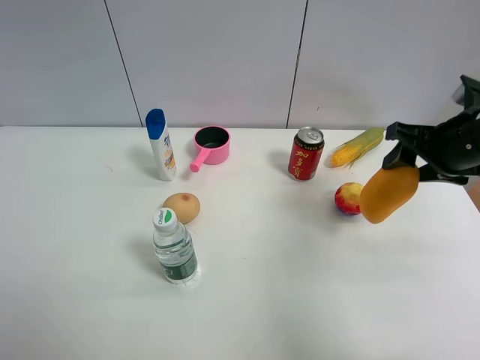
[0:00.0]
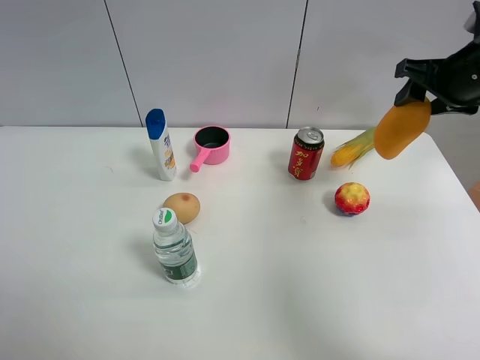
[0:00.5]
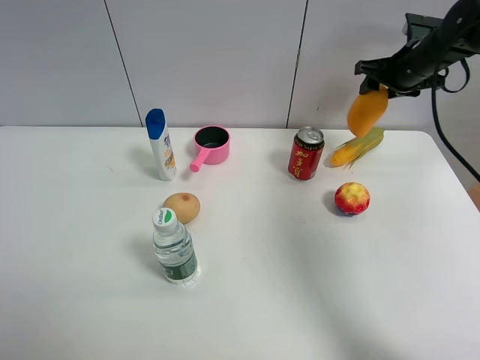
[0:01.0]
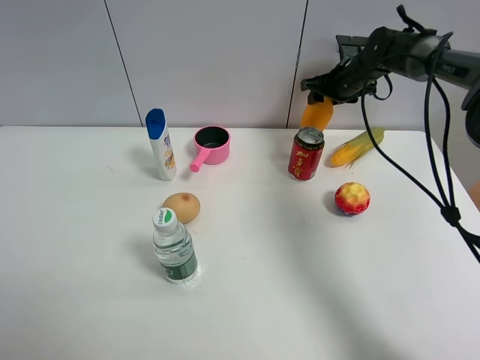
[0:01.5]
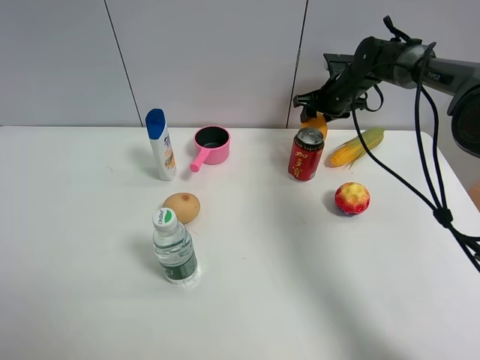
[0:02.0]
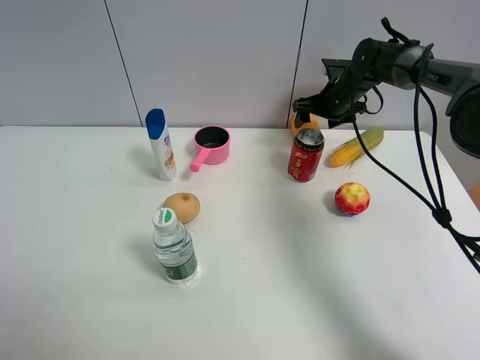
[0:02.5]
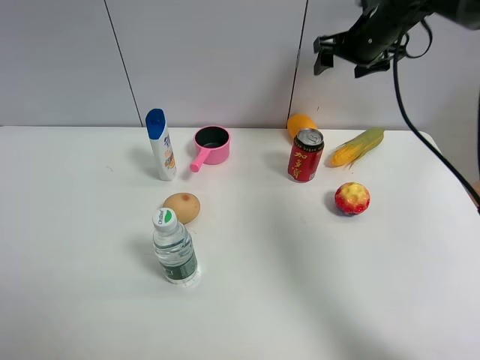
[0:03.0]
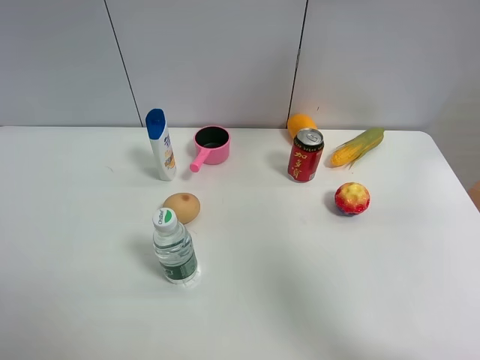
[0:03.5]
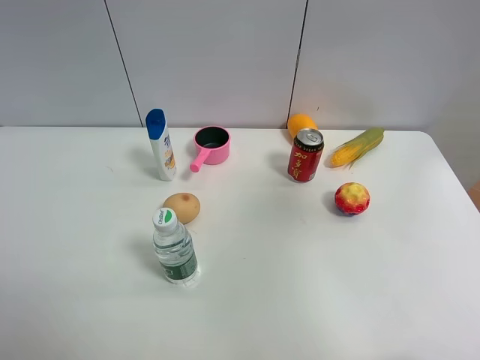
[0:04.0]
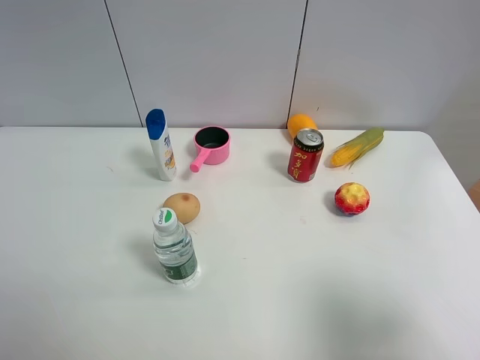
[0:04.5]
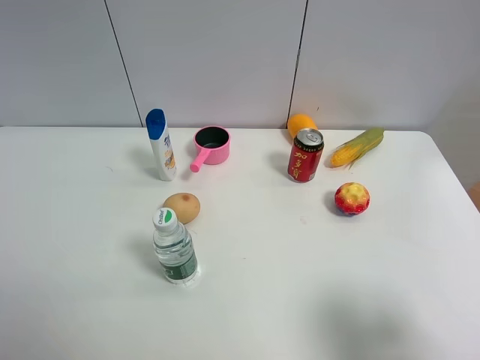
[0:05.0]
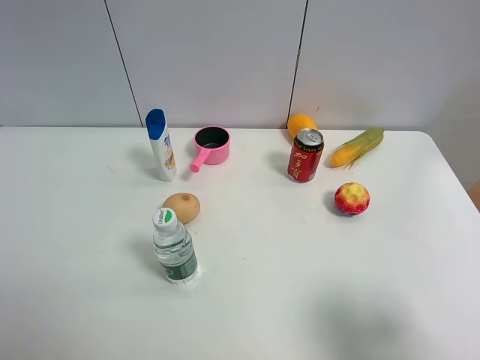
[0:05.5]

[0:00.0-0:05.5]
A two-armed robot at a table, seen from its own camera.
Task of the whole recording: the gripper move the object.
Step, 0.0 to 2.0 s: Place the mango on the table with the right gripper.
0.0 to 2.0 s: The right gripper is displaced forward by some 25 cm.
2.0 to 3.5 s: The right gripper goes approximately 35 cm upward and backward, and opens up.
3.5 to 5.5 s: The right gripper heads backward and downward, covering some 40 cm.

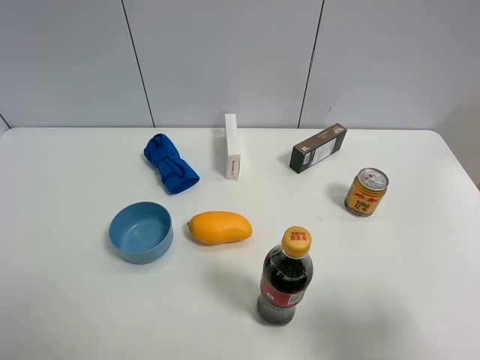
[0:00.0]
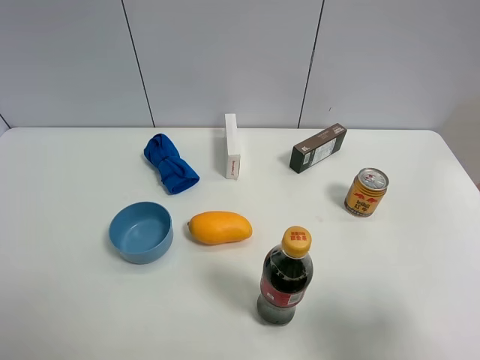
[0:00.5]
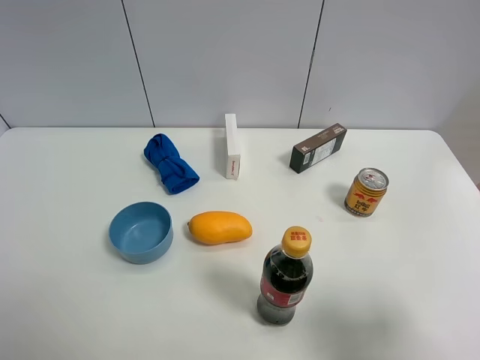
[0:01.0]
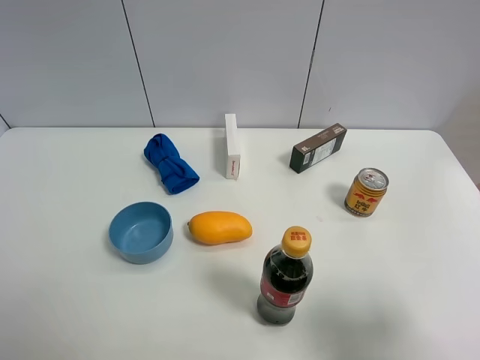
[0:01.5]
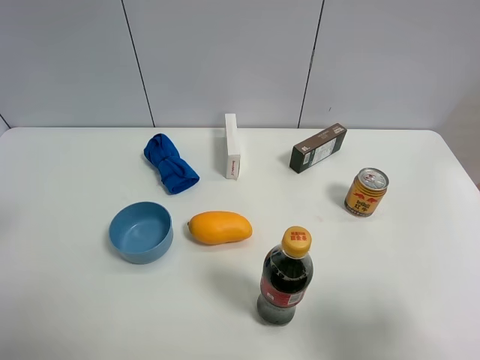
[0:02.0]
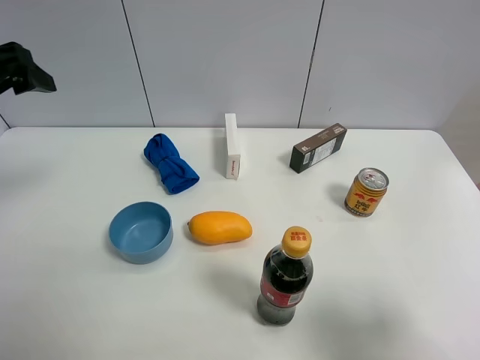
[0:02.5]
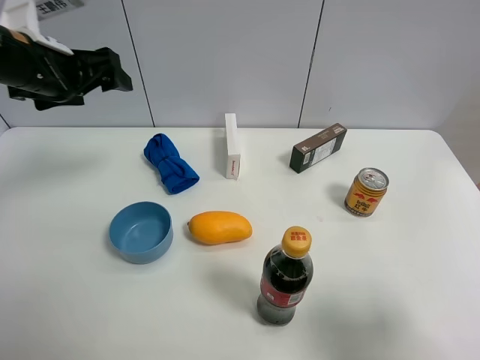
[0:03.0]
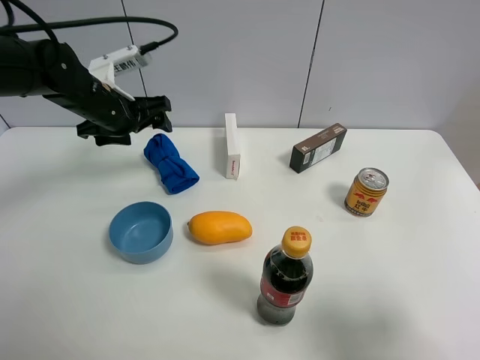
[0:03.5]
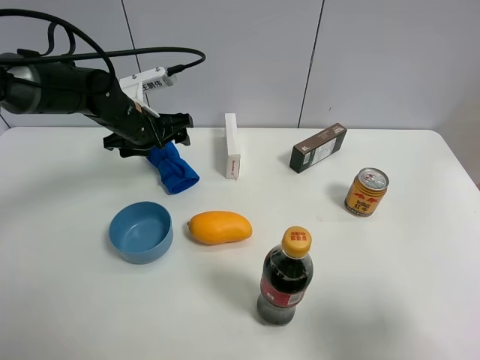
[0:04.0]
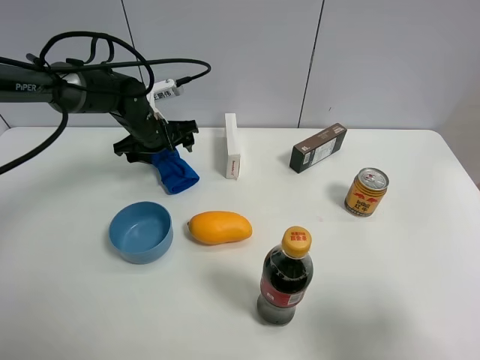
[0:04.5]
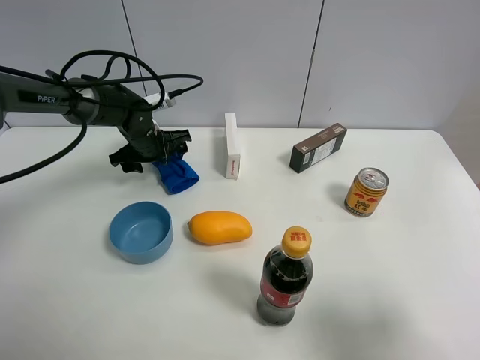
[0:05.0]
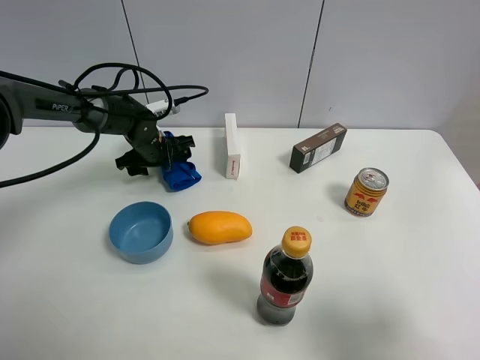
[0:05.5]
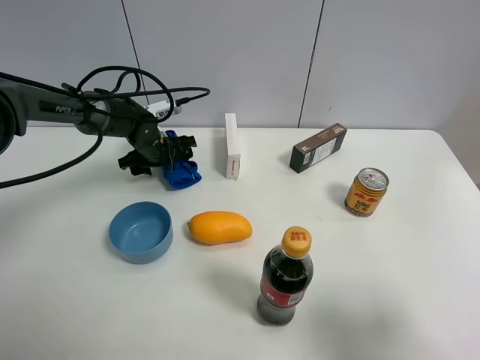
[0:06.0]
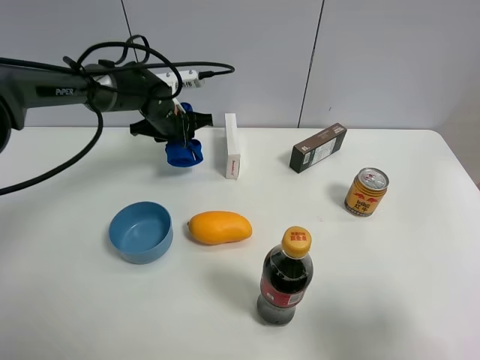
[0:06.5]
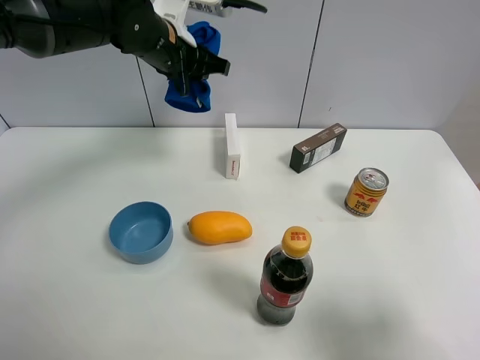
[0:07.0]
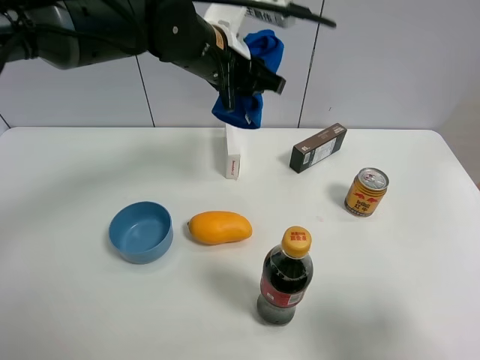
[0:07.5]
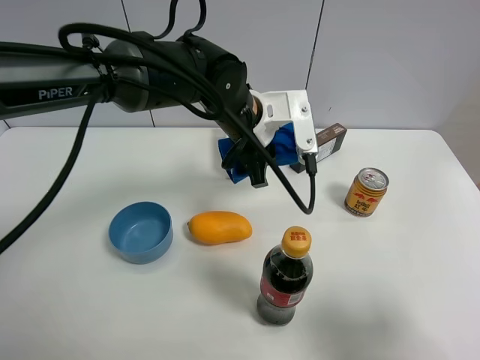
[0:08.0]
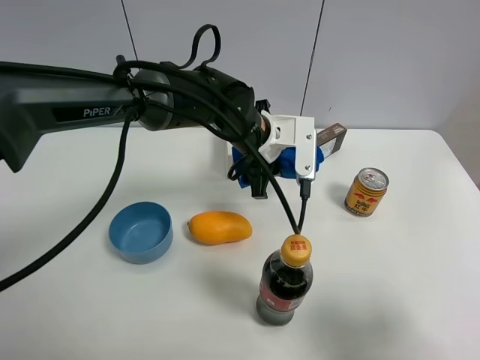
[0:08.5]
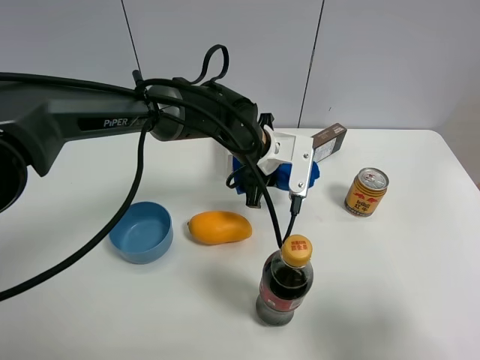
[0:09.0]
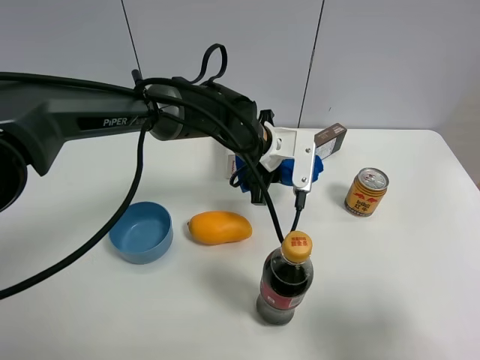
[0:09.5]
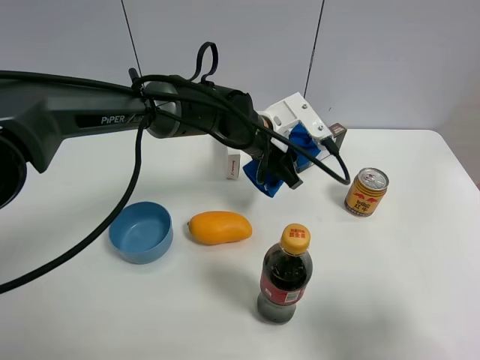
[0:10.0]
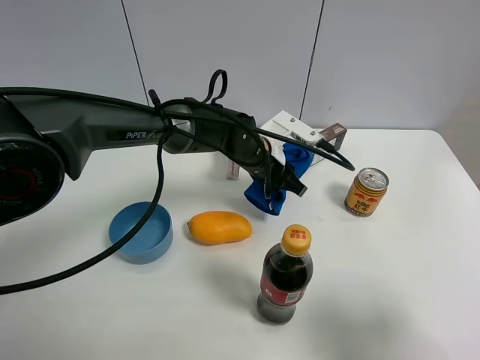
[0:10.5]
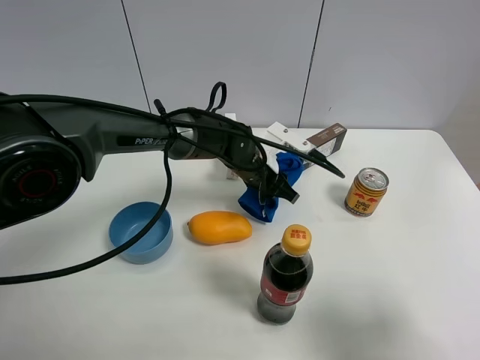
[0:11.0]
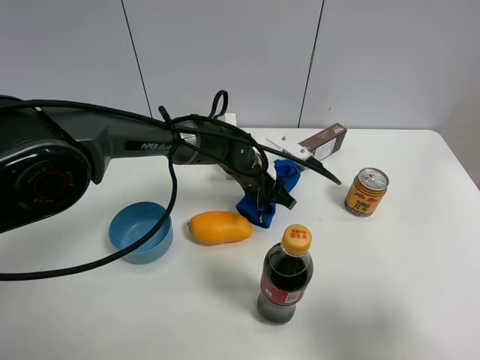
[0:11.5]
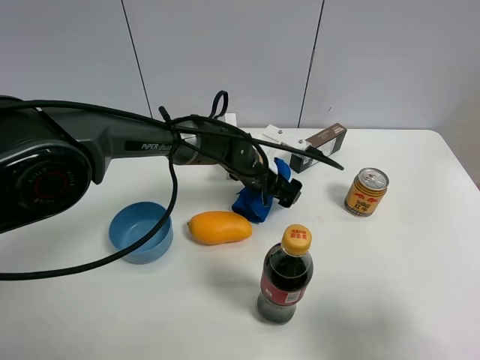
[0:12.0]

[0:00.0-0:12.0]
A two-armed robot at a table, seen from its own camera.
Task of the whole recording: the gripper move the object.
Step, 0.0 to 6.0 s: Grasp the blue towel with the left gripper.
2.0 to 4.0 s: The left gripper heads forward, downward and to the right, covering roughly 35 cm.
4.0 to 6.0 s: The left gripper heads downward and forward, covering some 10 cm.
6.0 to 8.0 s: The left gripper heads to the right, upward and backward, covering roughly 25 cm, and closes its fingers.
8.0 to 10.0 s: The left gripper heads downward, covering approximately 5 cm.
10.0 to 12.0 s: The left gripper is displaced downward by roughly 10 cm, and opens its fingers.

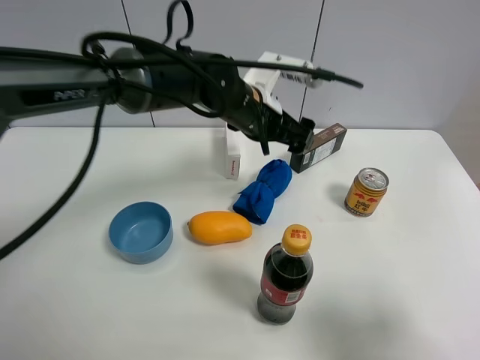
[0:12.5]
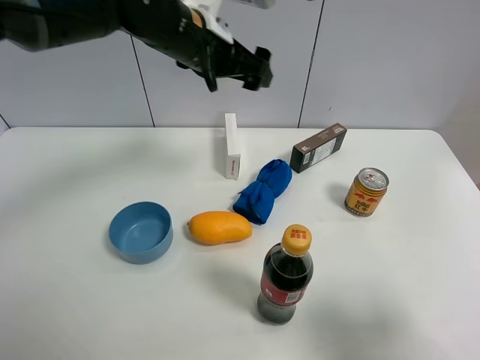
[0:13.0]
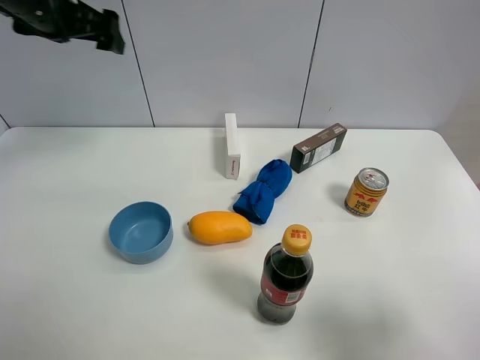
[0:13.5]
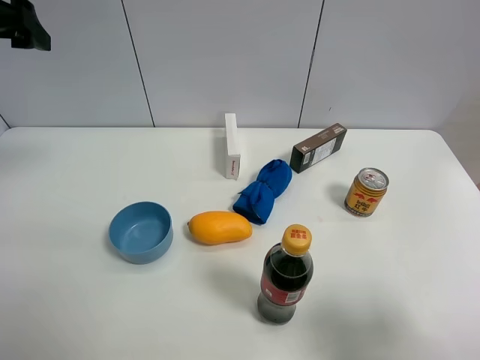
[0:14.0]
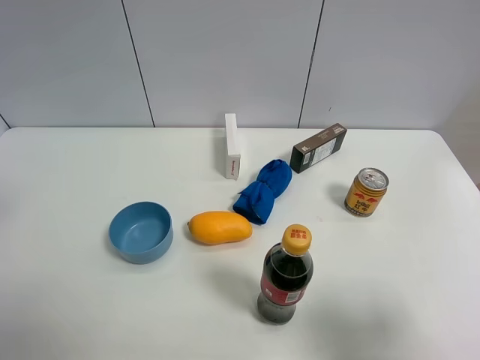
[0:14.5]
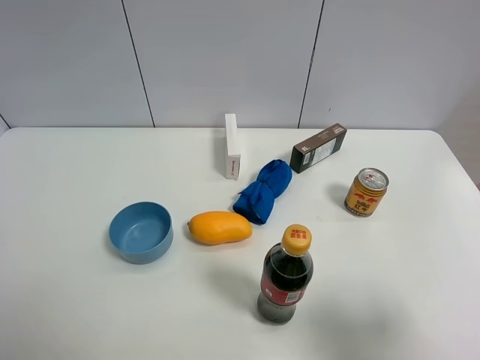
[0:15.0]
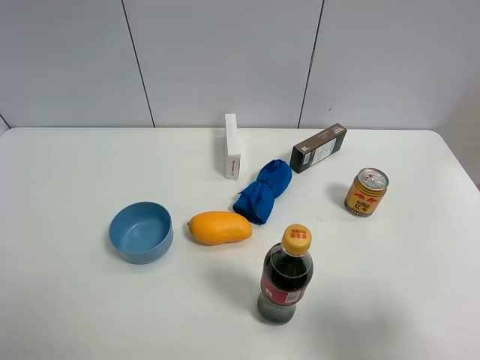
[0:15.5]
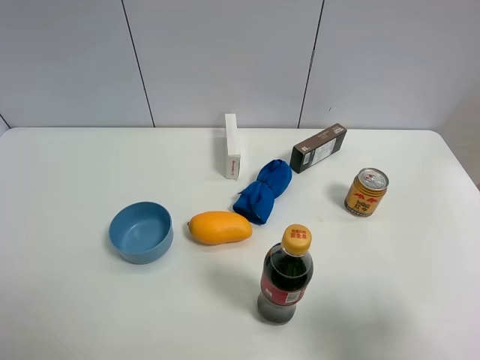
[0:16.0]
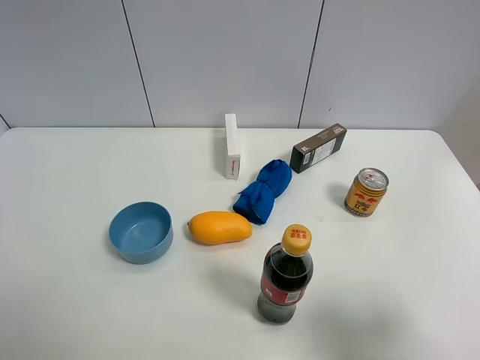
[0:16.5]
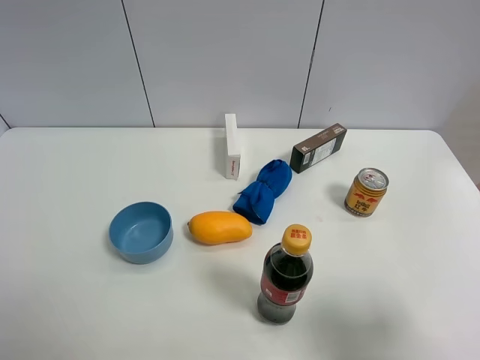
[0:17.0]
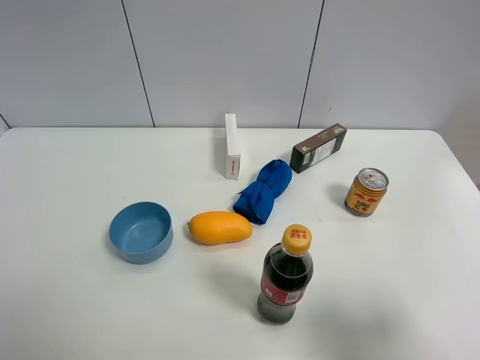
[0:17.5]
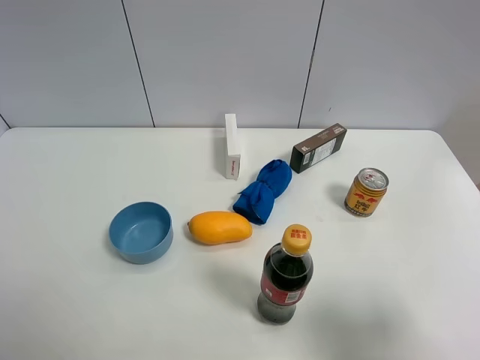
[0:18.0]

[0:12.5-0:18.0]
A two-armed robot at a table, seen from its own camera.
Task of the whole recording: the gripper move the object.
12.5 to 14.5 s: The left gripper travels to the left, backward and upward by approximately 40 cm.

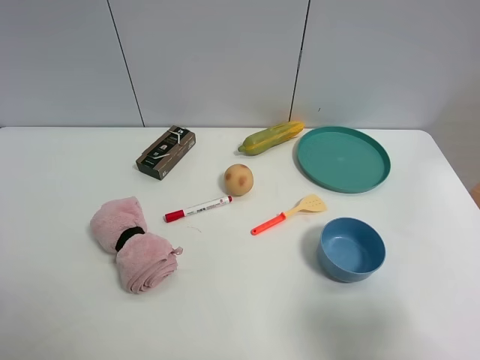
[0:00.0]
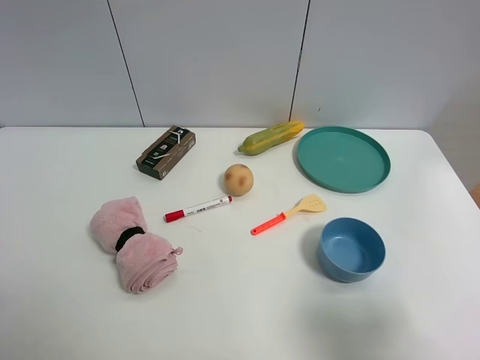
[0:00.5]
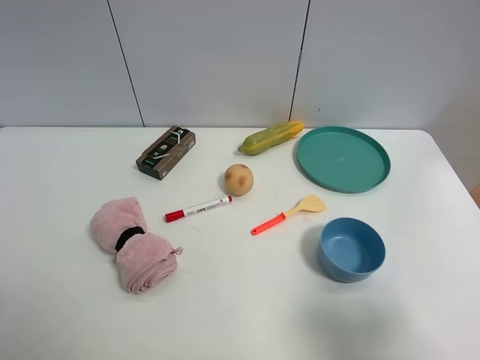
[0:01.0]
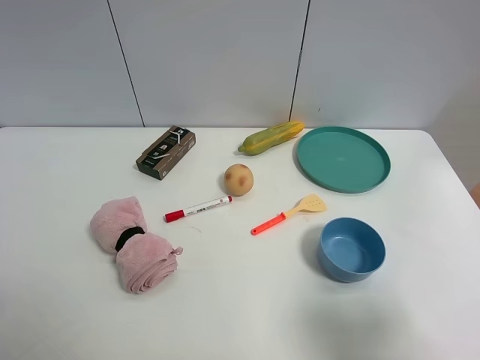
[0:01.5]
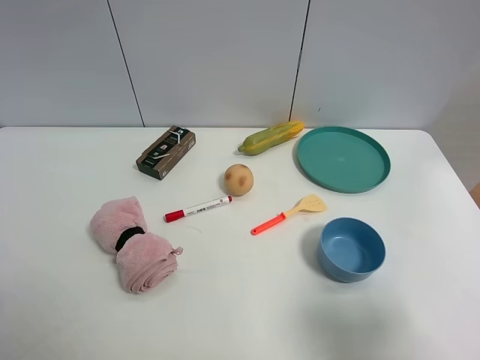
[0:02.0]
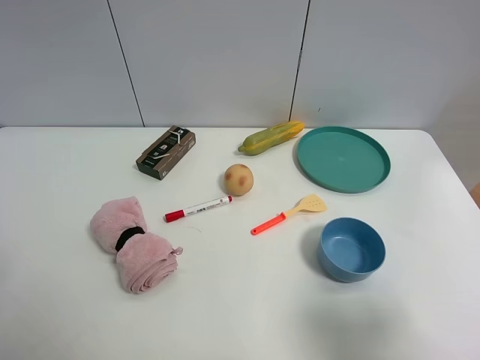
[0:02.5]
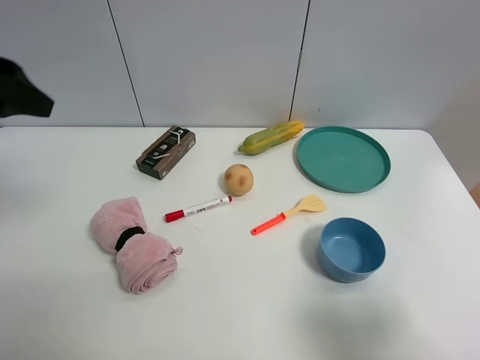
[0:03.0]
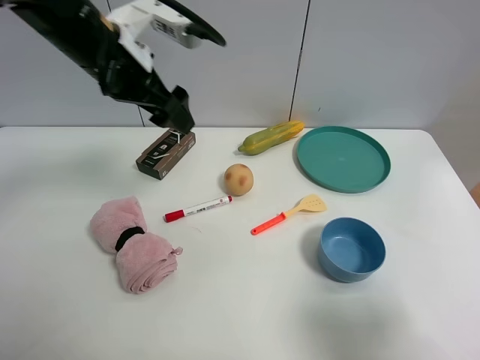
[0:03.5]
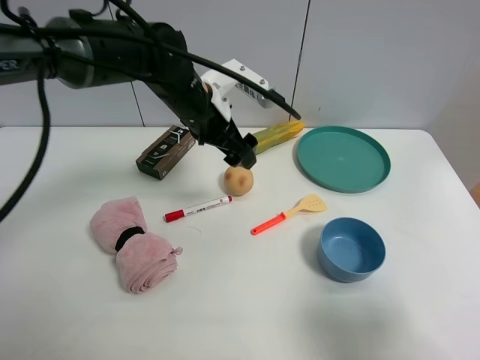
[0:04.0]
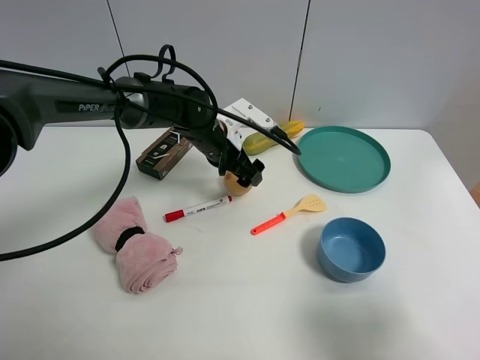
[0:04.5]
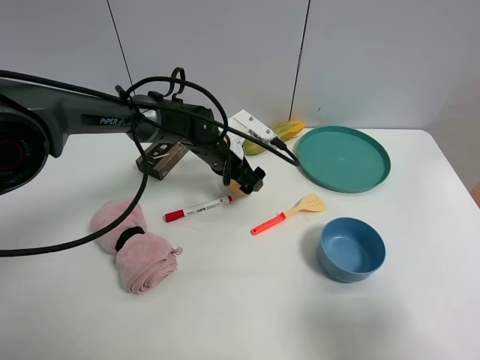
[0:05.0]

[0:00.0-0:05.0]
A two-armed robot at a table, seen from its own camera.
Task of the whole recording: the gripper move the object.
2.5 to 5.0 s: The left gripper travels forward, to the right and downward by about 50 cm.
